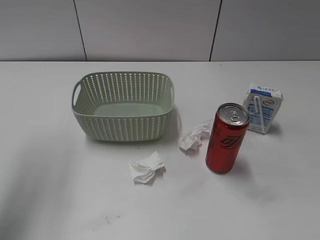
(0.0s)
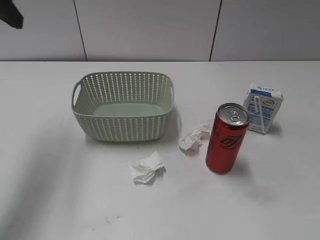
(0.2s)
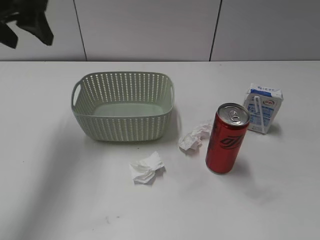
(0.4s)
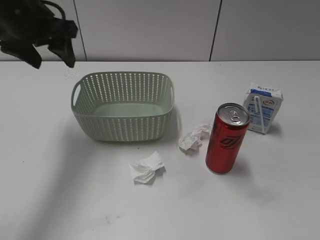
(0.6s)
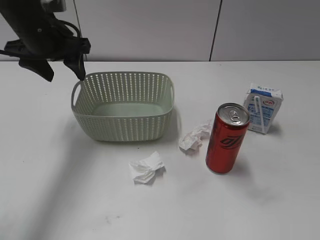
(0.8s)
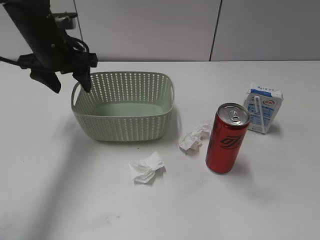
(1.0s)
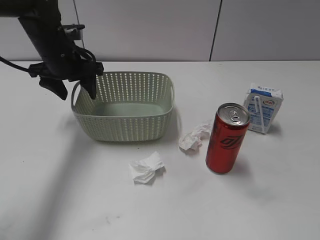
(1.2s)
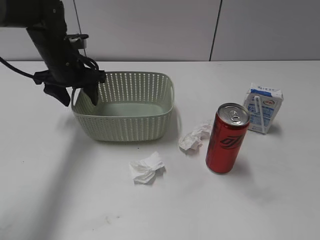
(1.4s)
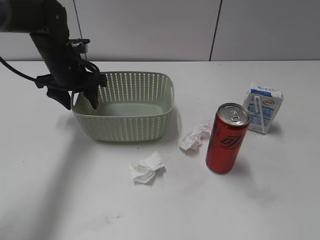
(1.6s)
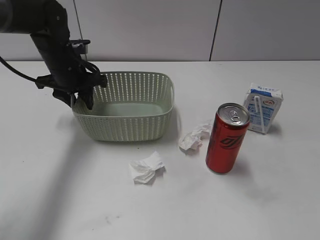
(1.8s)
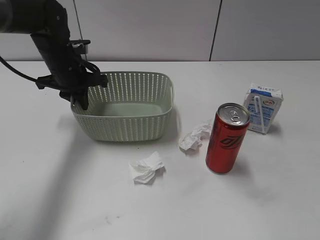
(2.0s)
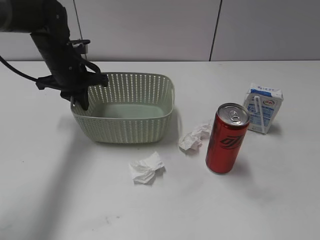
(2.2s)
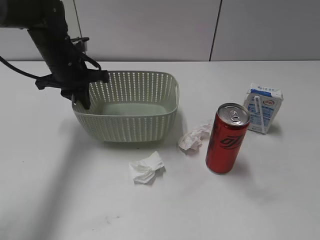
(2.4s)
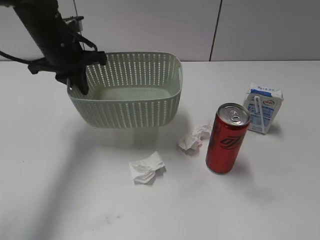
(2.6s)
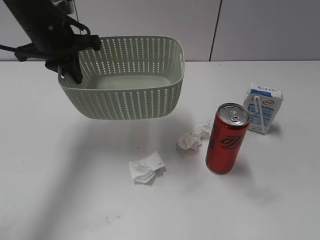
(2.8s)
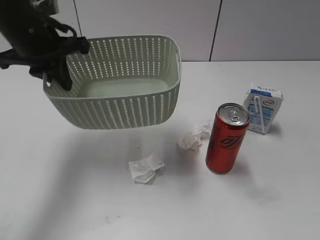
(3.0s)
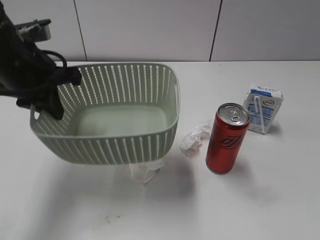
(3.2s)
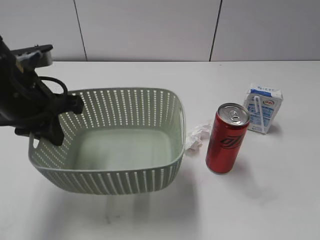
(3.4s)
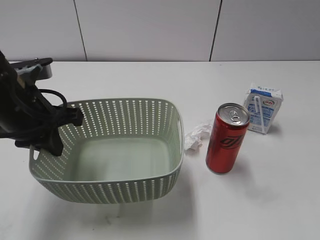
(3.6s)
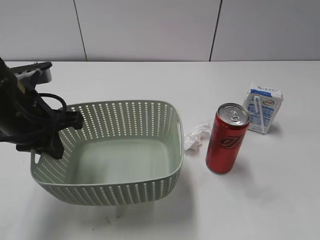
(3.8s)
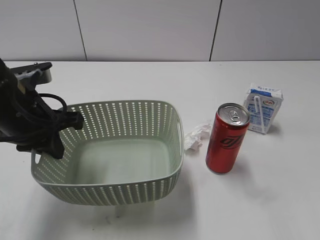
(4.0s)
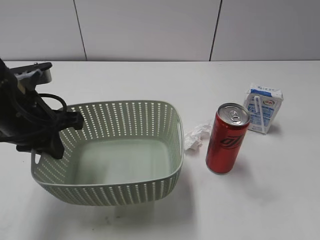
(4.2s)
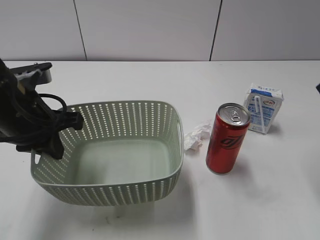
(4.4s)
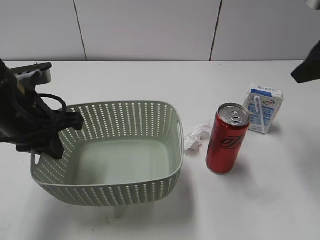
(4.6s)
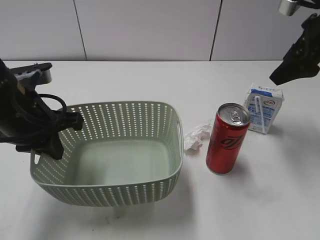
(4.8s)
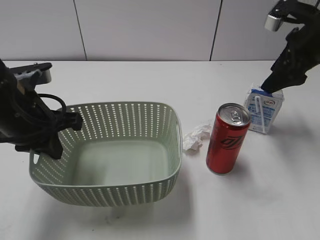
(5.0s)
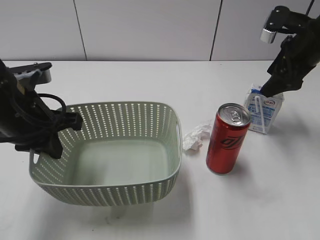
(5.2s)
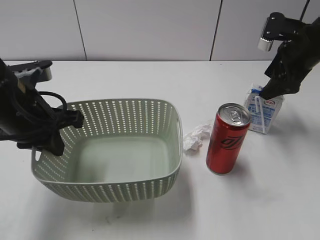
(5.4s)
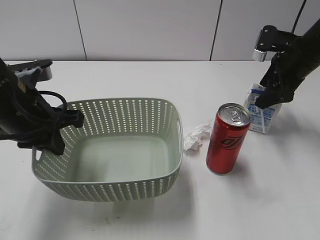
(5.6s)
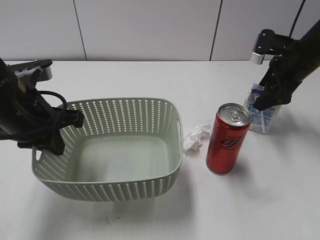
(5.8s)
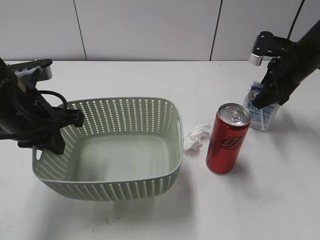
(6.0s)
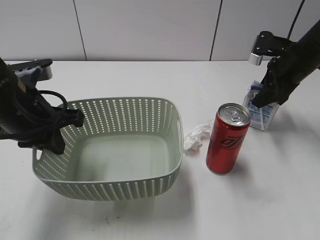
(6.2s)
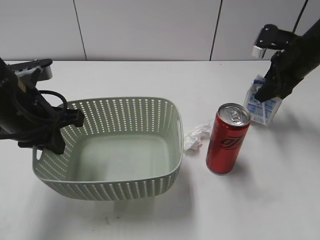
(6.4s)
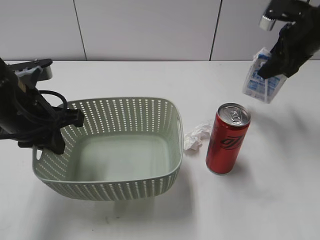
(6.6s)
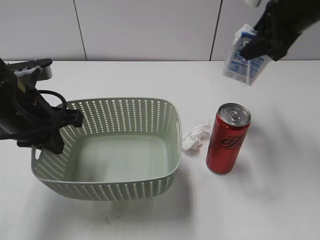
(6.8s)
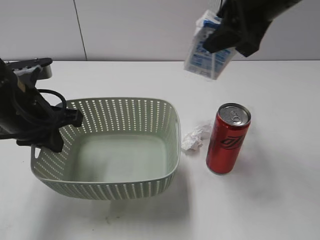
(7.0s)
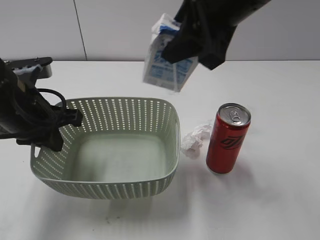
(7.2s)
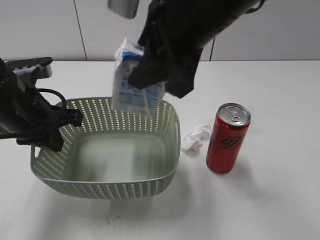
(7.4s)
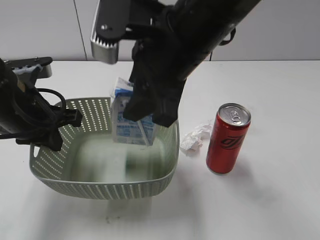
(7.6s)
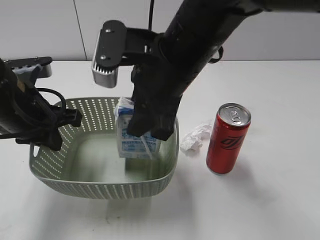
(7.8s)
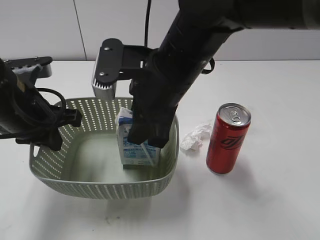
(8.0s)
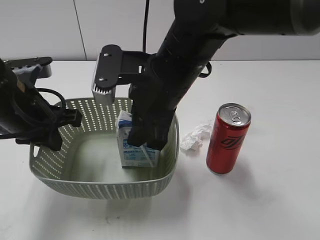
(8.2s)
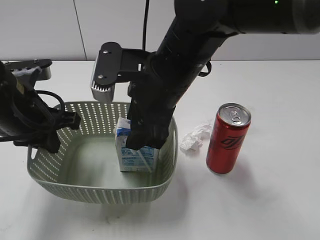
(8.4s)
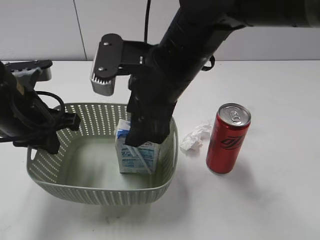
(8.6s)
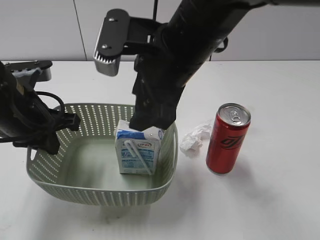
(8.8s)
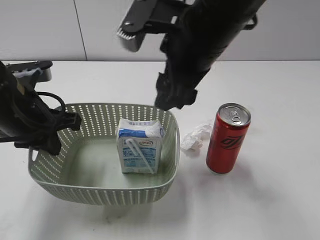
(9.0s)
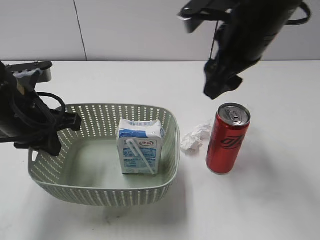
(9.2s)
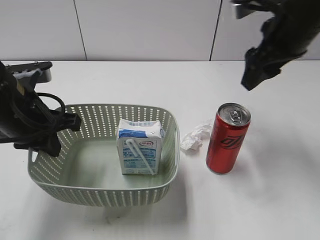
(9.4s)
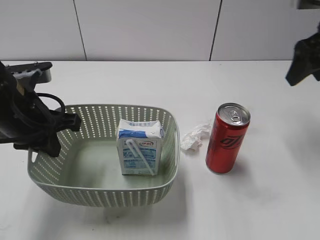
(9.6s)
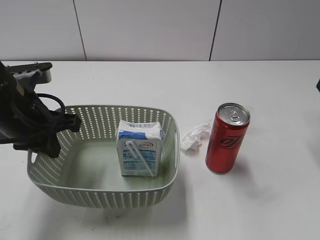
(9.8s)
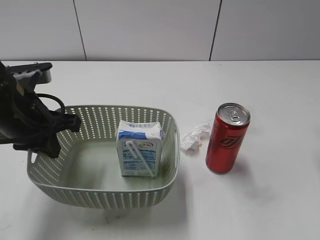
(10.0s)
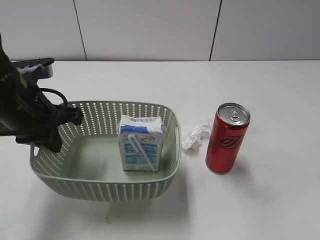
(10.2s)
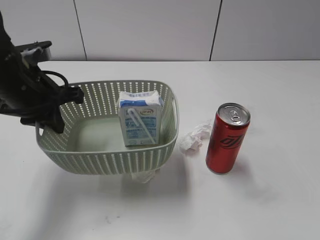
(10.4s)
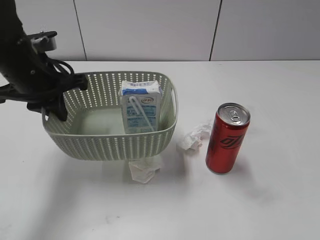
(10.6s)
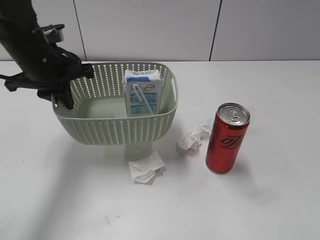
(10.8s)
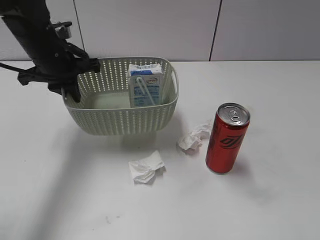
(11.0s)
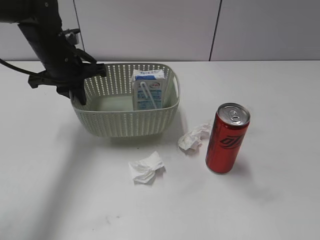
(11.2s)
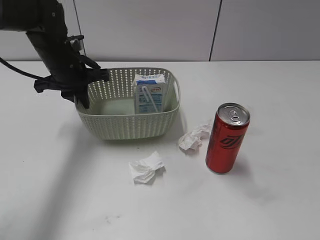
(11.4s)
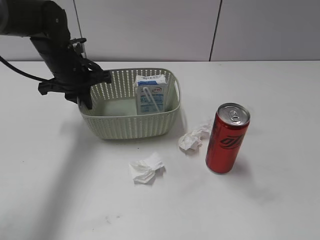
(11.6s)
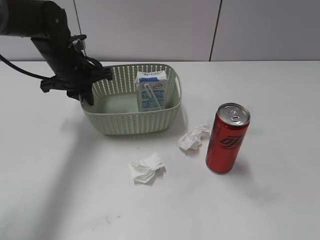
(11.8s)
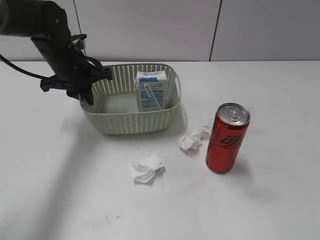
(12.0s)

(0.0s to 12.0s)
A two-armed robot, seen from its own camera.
Step, 0.2s - 2.0s: Grasp the basket with left gripper.
Step, 2.2s - 3.8s: Lift the basket with left gripper.
Step, 4.0s - 6.0s: Grasp the milk with right gripper.
Step, 6.2s - 8.8s: Place the milk in the basket with right gripper.
0.0s - 1.6s: The left gripper goes approximately 30 cm downward, forward and to the right.
1.6s - 3.0s: The left gripper shifts some 15 cm upward and backward, and closes its fingers.
3.0s - 4.4s: The left gripper is displaced backward and downward by approximately 10 cm; the right gripper travels forward by about 20 cm.
4.4s - 6.0s: The right gripper heads forward and downward, covering approximately 20 cm, and closes up.
6.0s - 7.6s: The right gripper travels to the left, backward and upward by some 30 cm.
7.6s - 9.0s: The right gripper opens up.
9.0s - 10.4s: The right gripper moves to the right, about 25 cm.
10.4s - 12.0s: The left gripper is displaced forward by approximately 15 cm; the right gripper heads backward, covering some 20 cm.

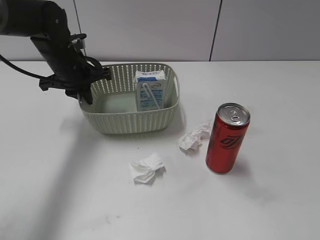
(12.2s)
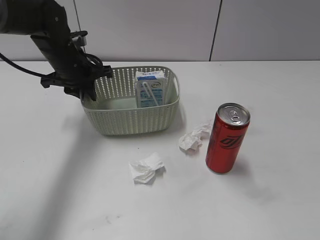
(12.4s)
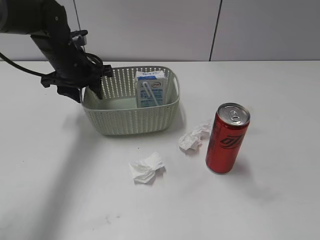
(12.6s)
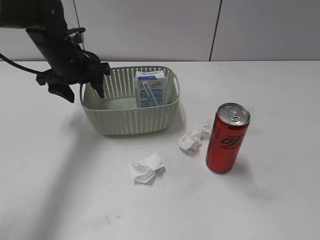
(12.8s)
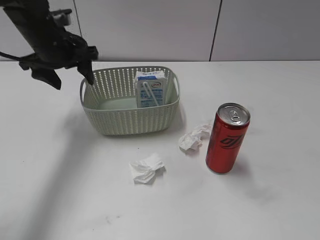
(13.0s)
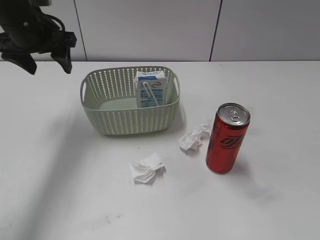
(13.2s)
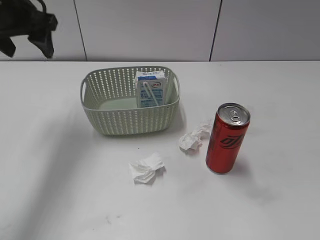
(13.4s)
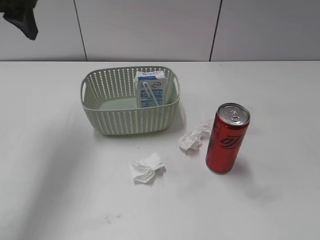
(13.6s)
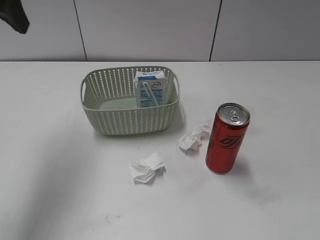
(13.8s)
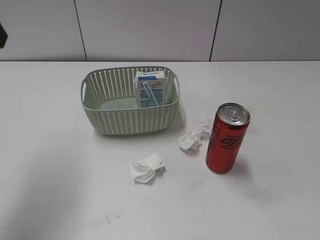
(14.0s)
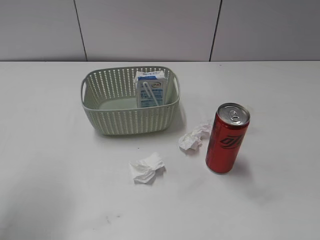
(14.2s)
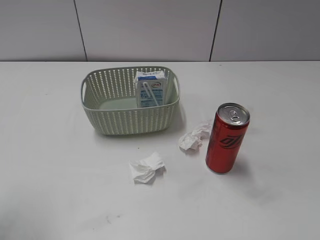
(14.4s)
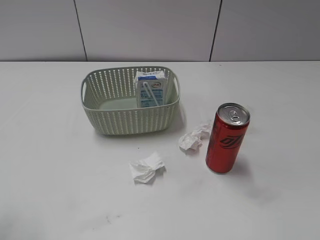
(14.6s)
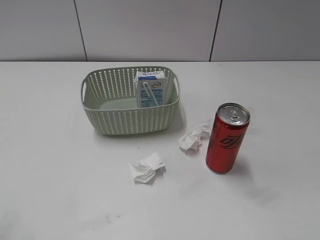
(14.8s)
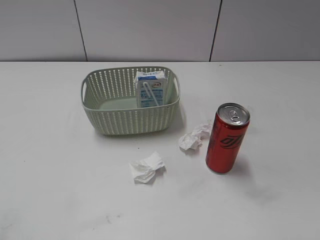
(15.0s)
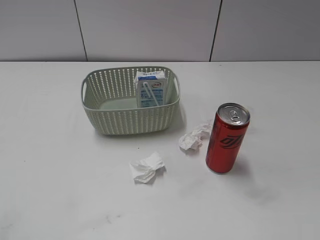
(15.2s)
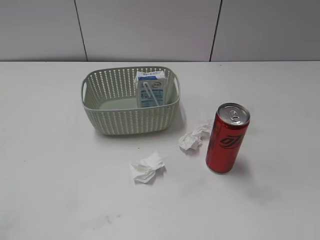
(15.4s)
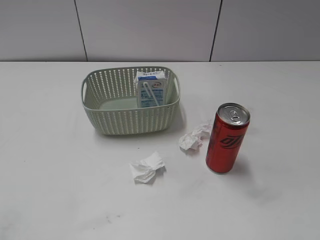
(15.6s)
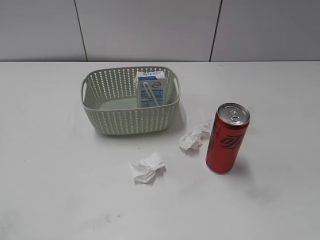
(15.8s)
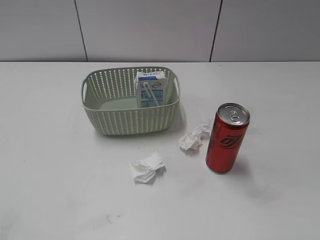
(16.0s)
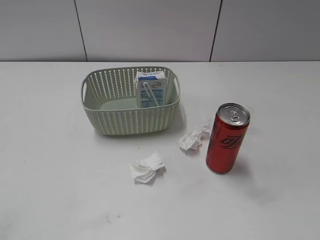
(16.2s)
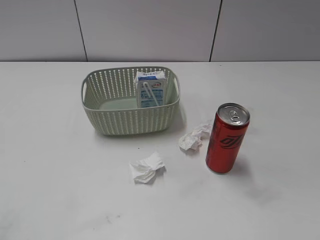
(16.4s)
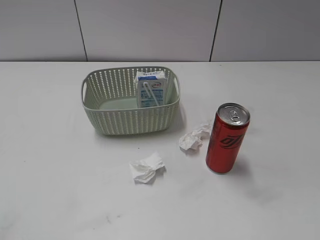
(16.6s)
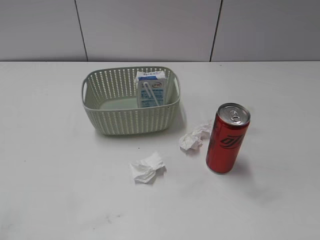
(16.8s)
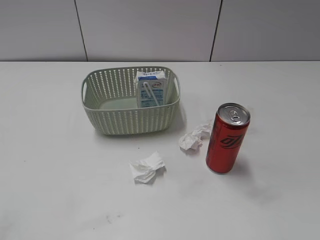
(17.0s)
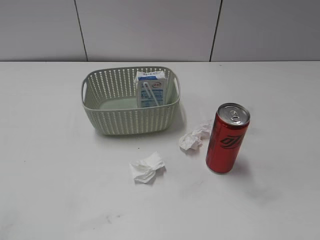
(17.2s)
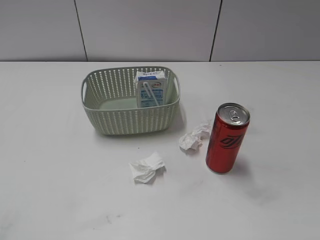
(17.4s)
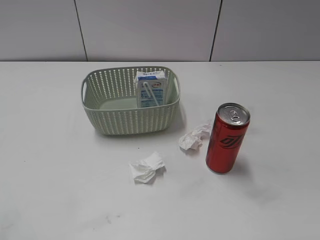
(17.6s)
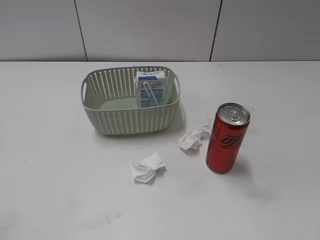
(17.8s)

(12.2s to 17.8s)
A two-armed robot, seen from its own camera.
12.2s - 13.6s: The left gripper is displaced upward by roughly 20 cm, and opens its fingers.
13.6s - 15.0s: The left gripper shifts roughly 30 cm backward.
